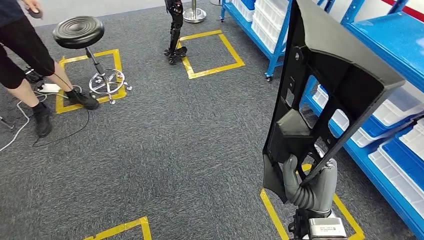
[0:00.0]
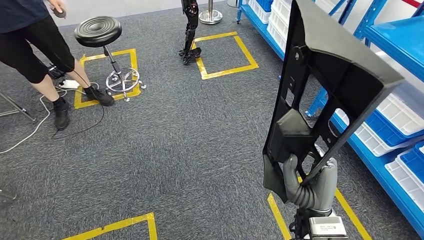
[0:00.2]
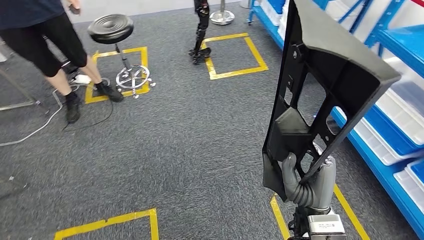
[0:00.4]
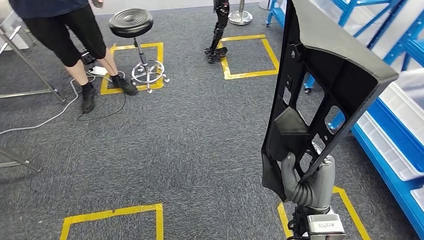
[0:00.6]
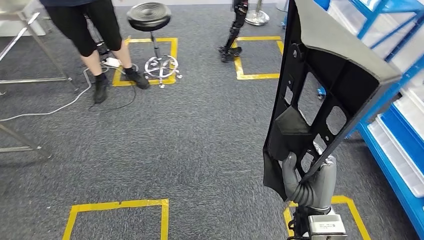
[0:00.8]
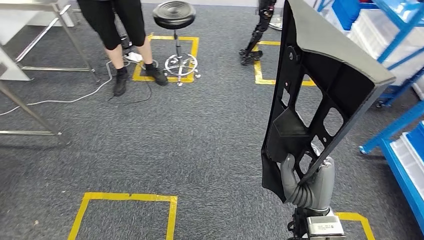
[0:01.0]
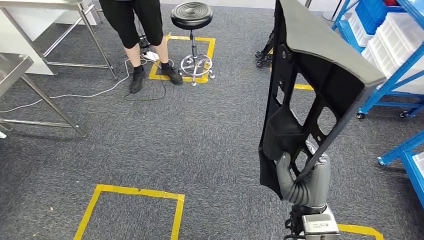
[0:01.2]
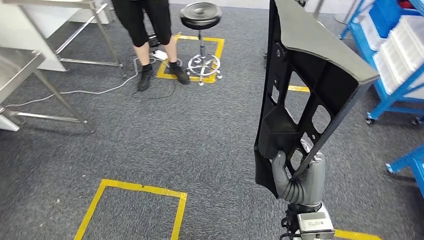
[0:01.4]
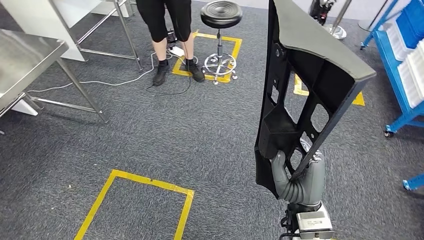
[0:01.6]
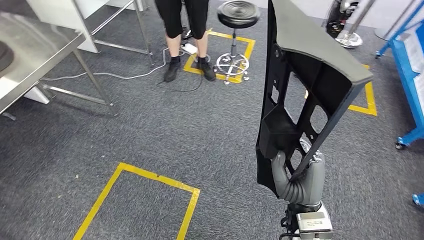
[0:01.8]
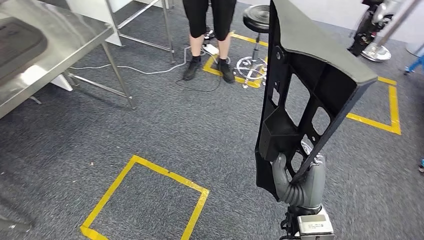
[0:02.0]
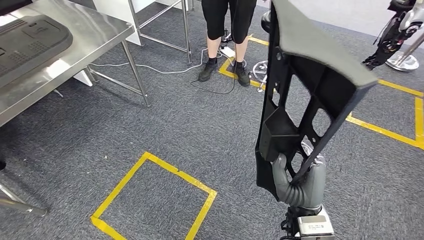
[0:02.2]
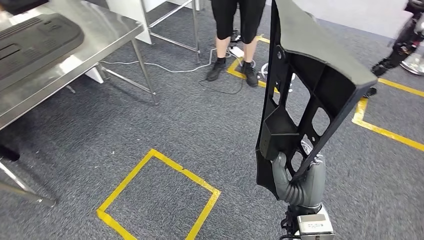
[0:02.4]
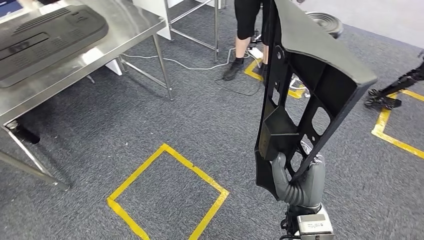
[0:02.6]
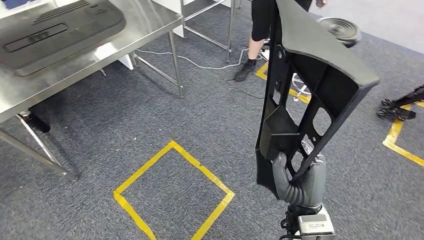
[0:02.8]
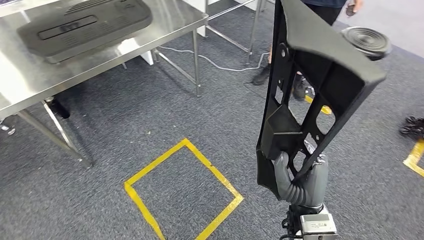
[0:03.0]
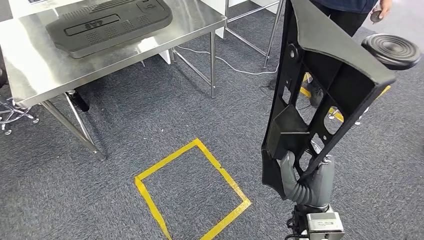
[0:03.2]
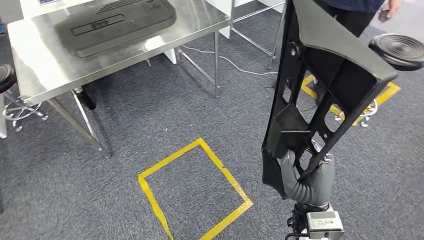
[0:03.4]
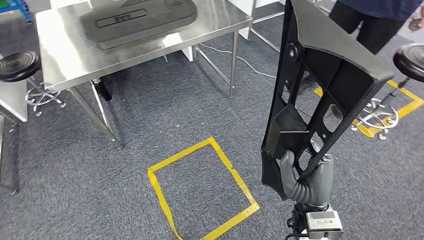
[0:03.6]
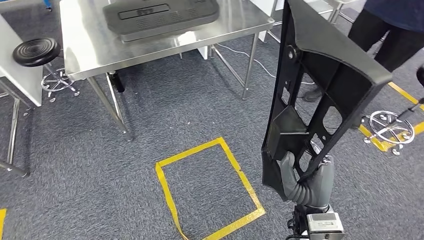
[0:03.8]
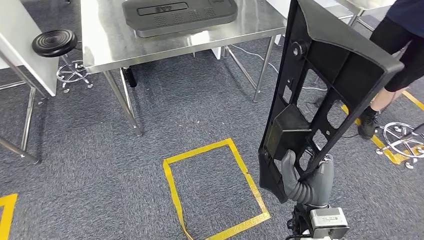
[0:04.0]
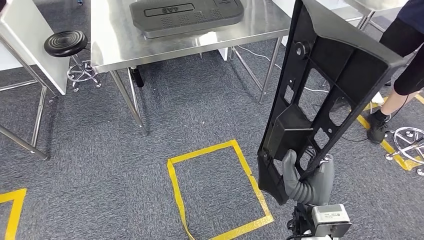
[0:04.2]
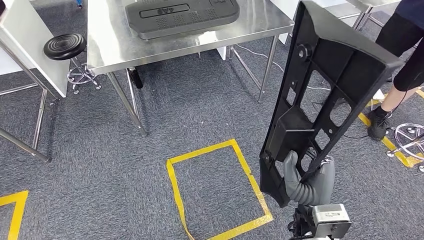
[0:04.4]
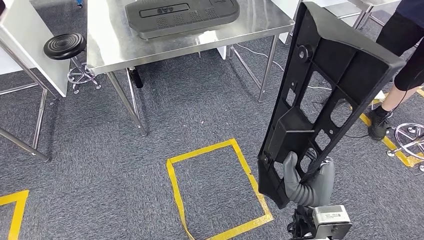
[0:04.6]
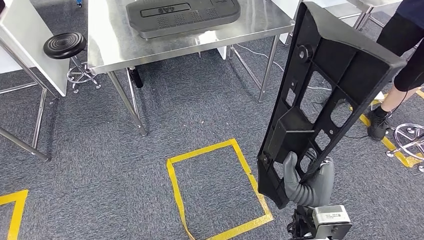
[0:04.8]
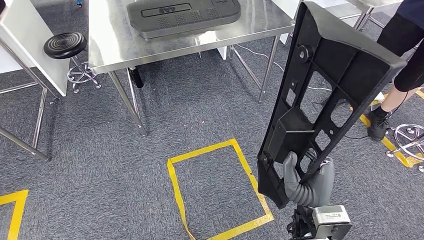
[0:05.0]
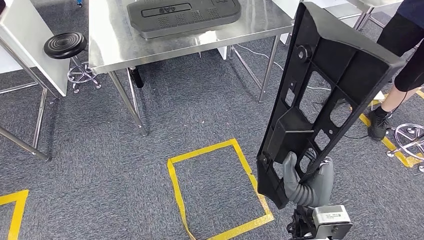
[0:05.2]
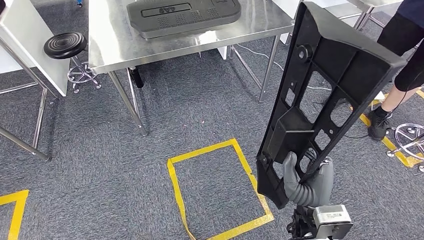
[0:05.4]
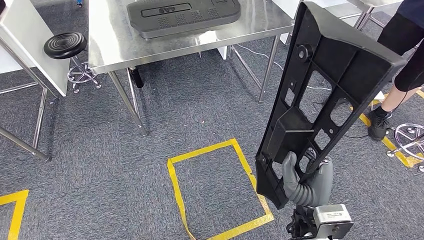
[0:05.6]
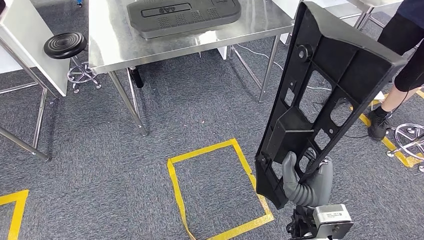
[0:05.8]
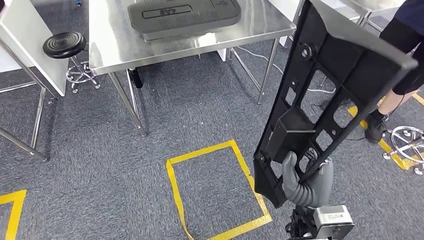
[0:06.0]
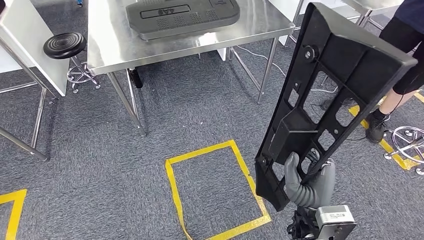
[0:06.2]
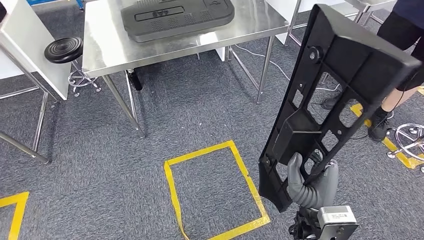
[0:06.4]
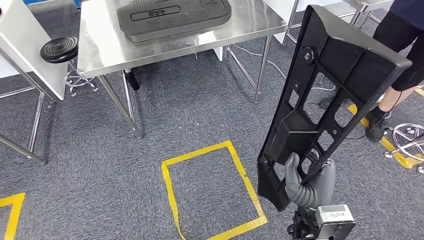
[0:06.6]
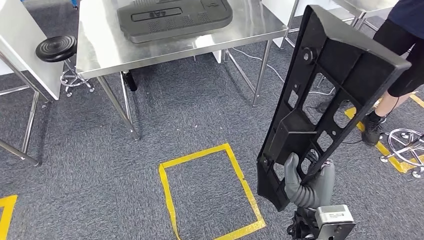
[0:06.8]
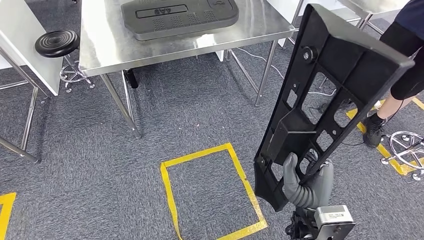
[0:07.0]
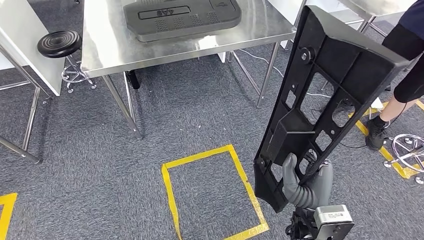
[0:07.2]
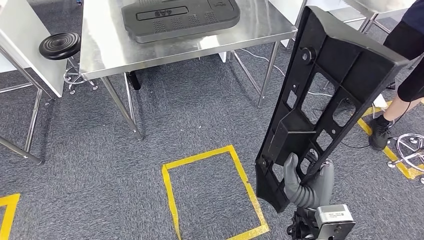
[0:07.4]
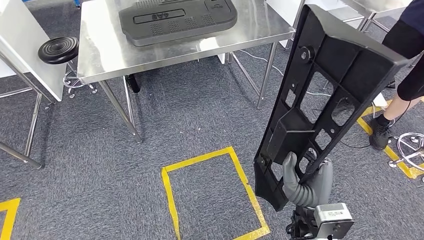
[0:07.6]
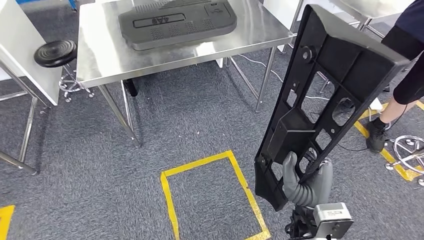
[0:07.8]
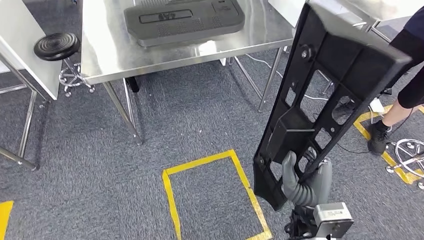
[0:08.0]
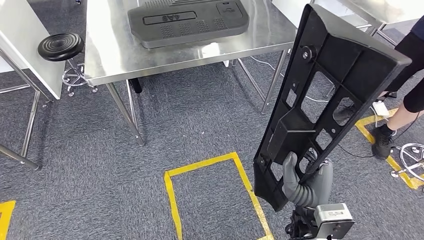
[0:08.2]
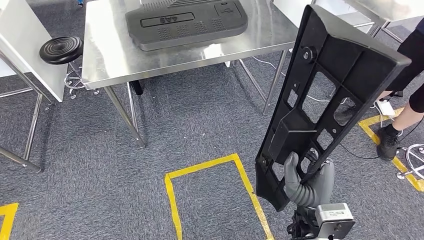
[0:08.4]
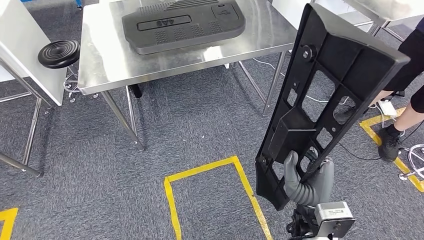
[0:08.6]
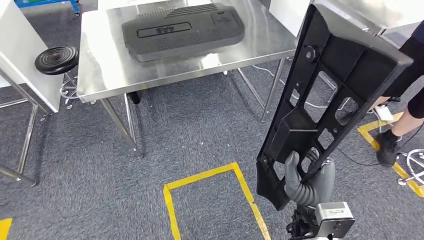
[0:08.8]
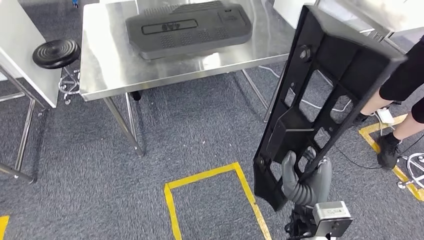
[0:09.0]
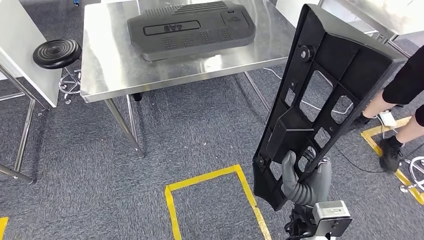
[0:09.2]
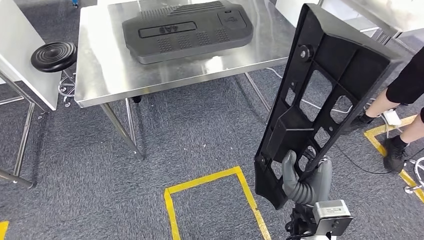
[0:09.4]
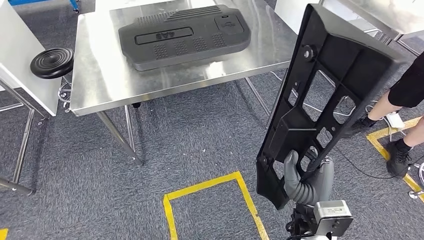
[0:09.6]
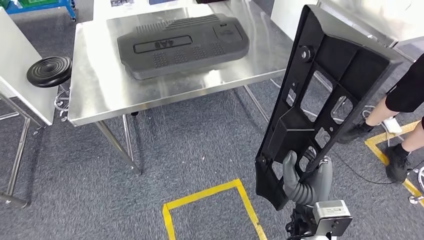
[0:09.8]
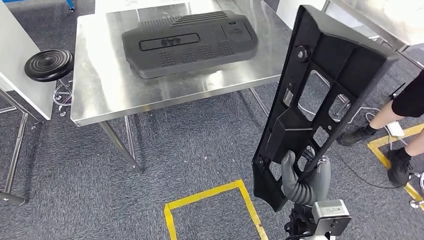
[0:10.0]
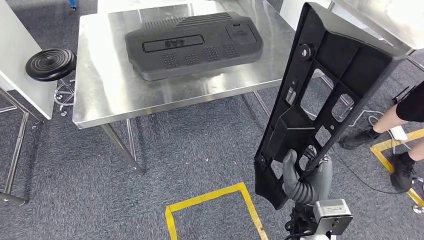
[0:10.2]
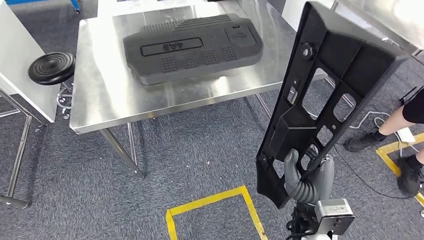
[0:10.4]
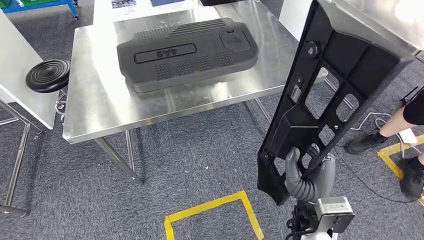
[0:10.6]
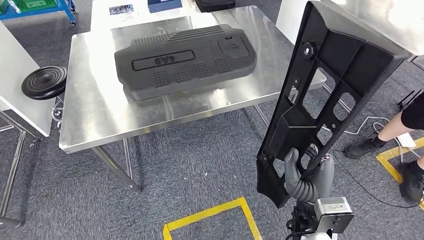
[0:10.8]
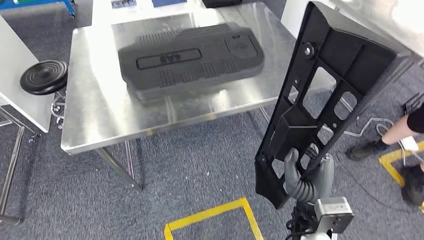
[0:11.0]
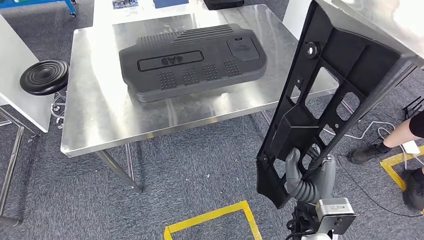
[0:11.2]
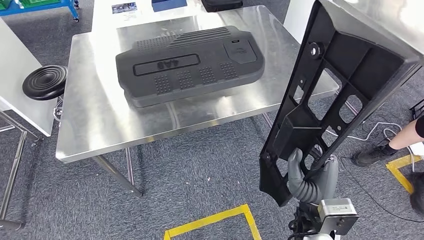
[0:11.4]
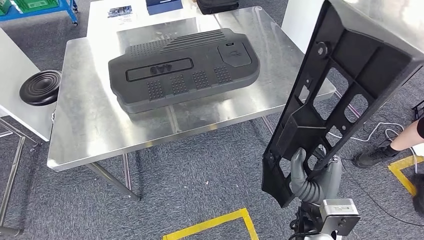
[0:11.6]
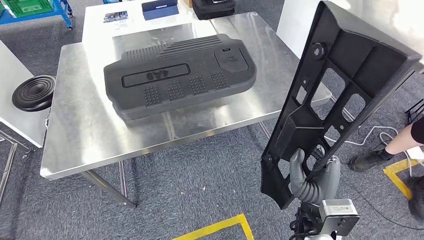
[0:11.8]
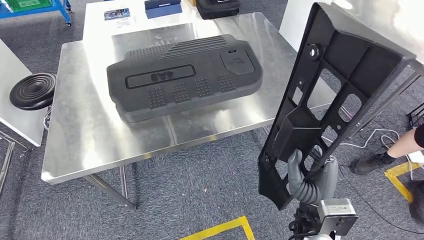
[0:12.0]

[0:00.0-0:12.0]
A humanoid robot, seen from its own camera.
Step, 0:00.0 to 0:10.0: Move the large material to the front of the workbench.
0:04.4 to 0:06.0: The two hands keep their place.

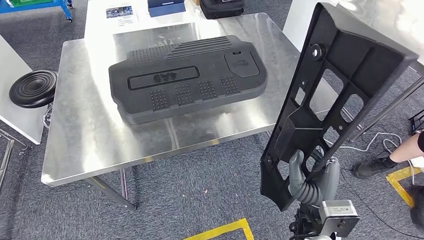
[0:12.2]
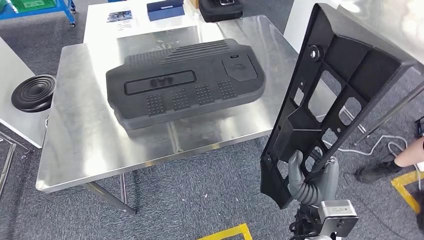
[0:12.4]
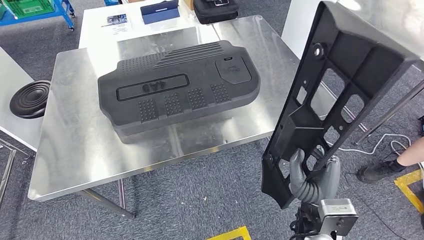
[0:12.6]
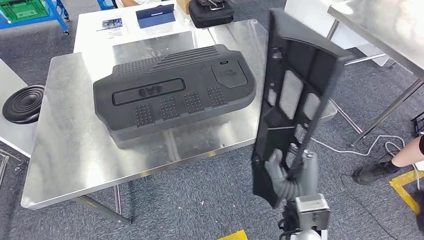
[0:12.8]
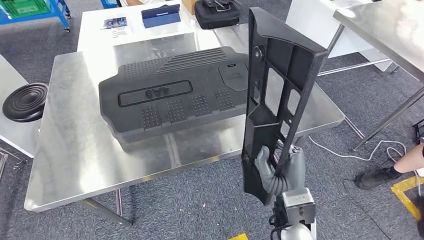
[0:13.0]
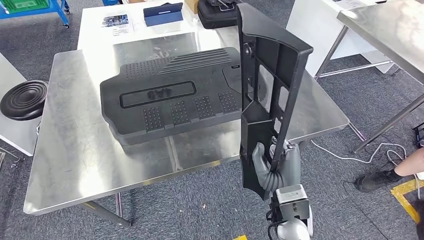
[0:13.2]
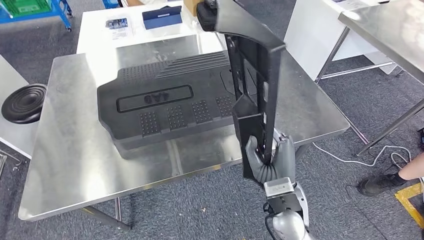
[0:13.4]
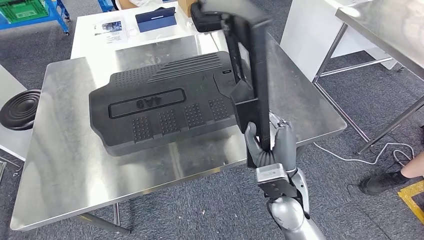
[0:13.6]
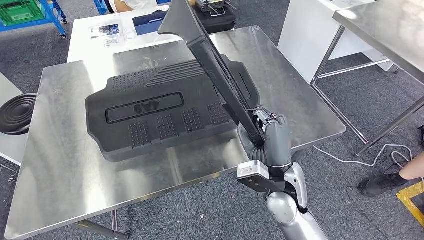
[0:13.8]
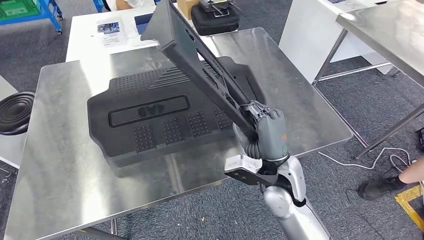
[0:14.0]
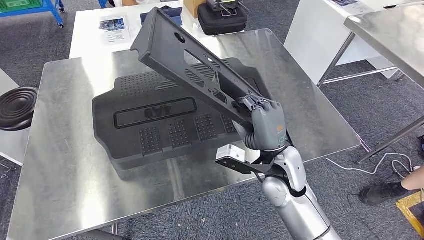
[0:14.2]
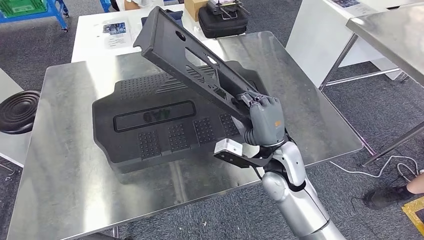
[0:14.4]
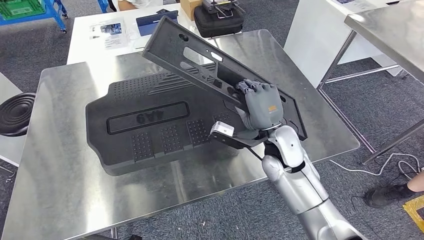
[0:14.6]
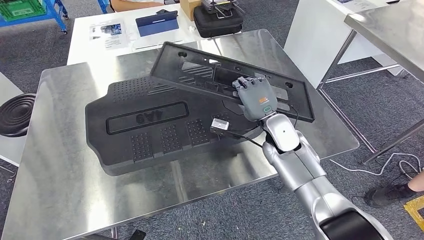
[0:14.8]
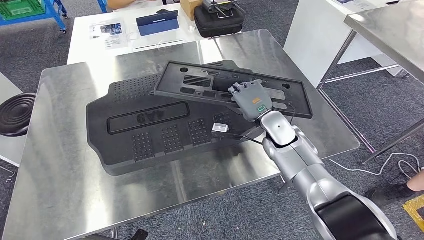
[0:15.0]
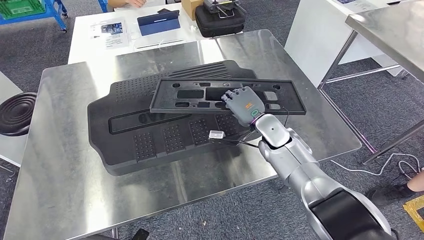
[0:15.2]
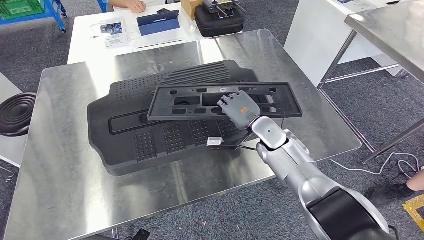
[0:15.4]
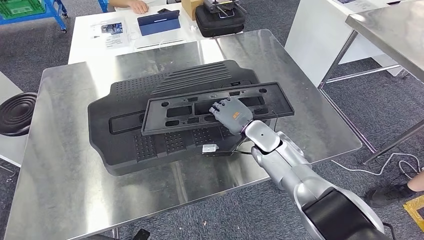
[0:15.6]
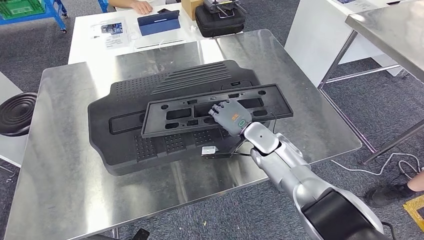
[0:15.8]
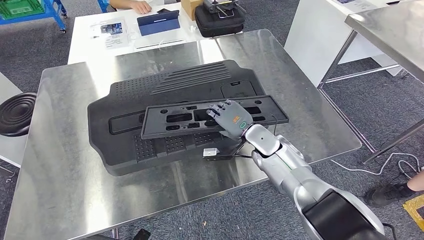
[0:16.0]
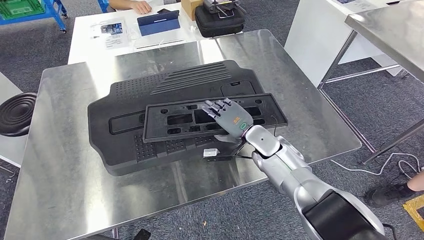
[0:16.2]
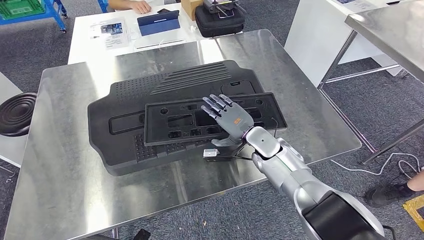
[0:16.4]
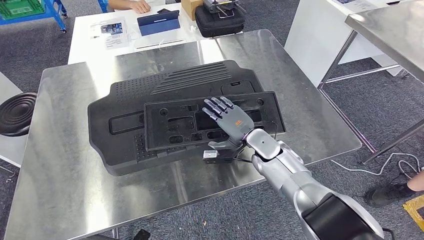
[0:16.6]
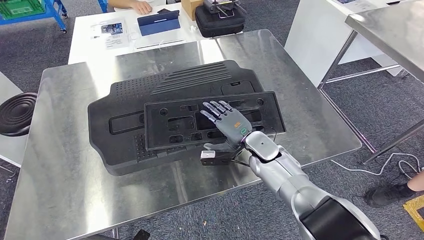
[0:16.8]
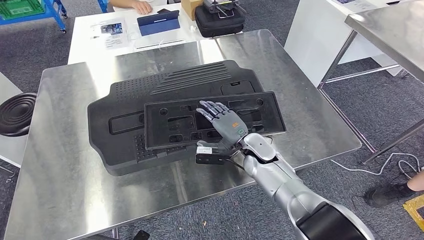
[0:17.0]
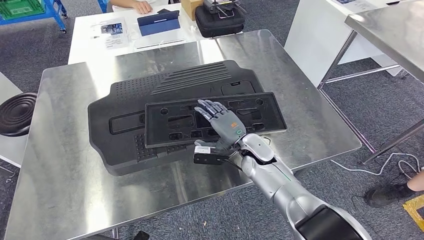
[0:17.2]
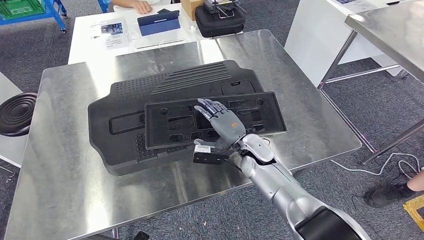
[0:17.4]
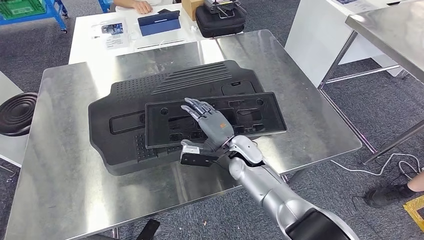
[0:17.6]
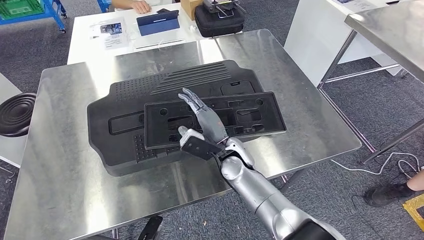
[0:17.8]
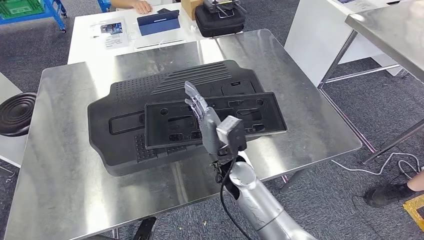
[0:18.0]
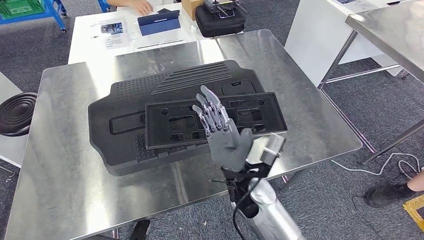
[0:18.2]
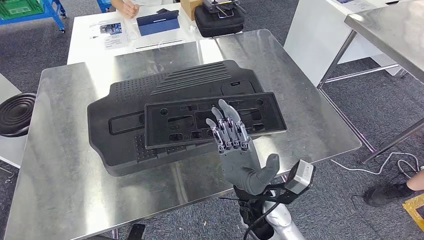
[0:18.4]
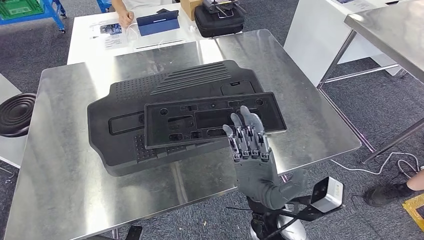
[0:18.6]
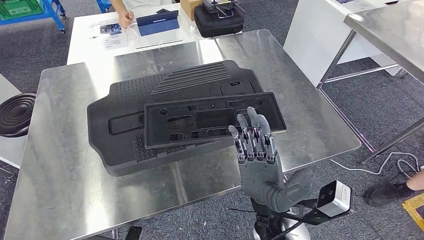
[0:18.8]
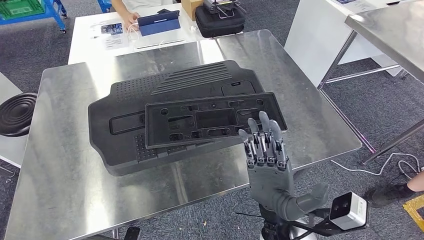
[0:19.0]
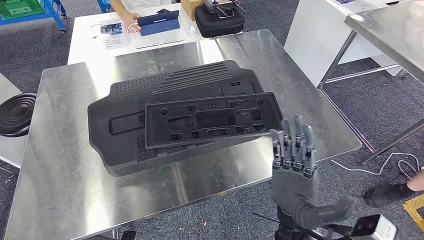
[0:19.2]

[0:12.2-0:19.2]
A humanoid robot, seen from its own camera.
0:15.0 to 0:16.4: The right hand changes place by approximately 5 cm.
0:16.4 to 0:17.8: The left hand shifts approximately 5 cm to the right. The right hand is displaced to the left and backward by about 10 cm.
0:17.8 to 0:19.2: The right hand travels backward and to the right by some 20 cm; the left hand travels backward by about 5 cm.
